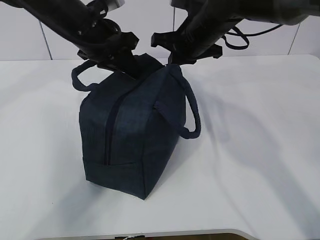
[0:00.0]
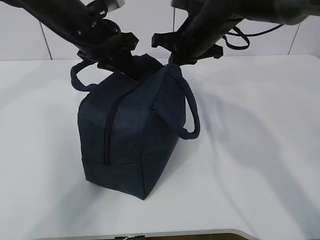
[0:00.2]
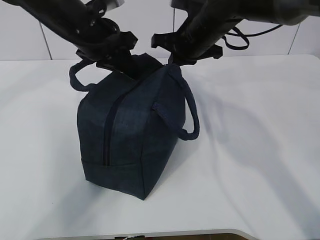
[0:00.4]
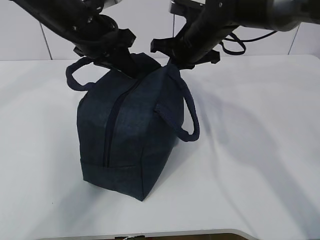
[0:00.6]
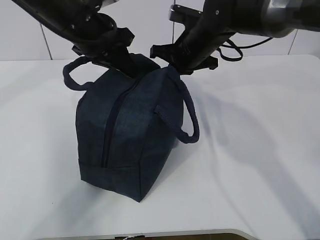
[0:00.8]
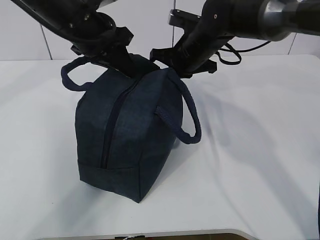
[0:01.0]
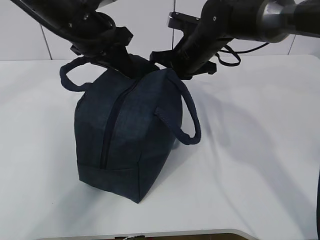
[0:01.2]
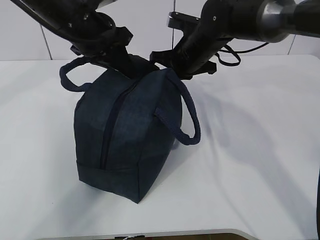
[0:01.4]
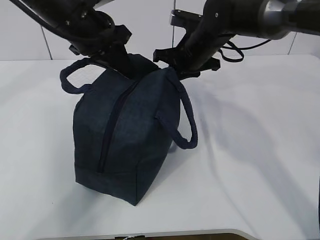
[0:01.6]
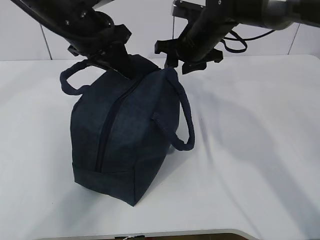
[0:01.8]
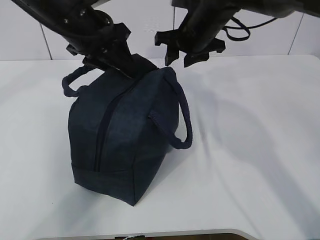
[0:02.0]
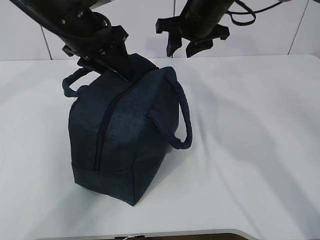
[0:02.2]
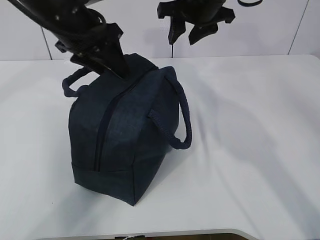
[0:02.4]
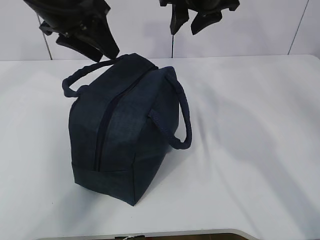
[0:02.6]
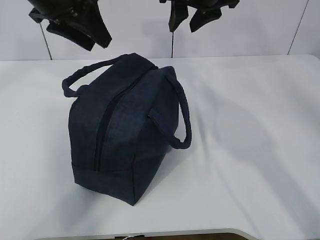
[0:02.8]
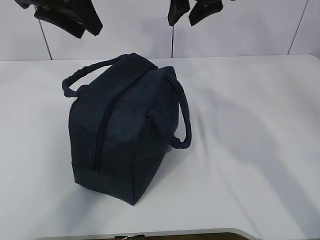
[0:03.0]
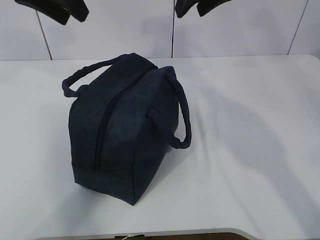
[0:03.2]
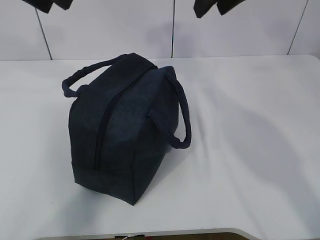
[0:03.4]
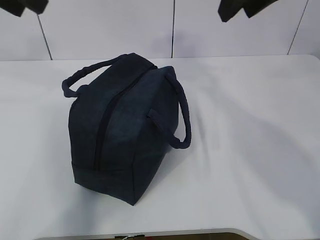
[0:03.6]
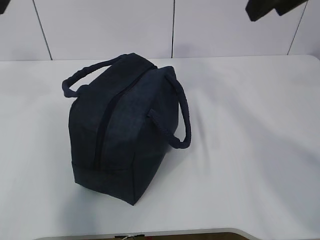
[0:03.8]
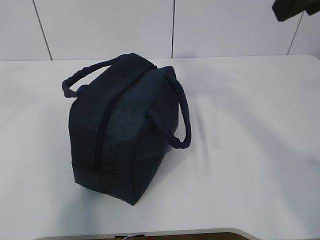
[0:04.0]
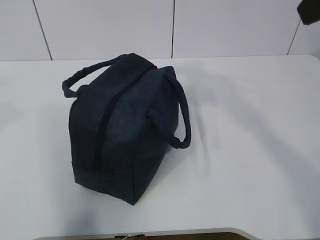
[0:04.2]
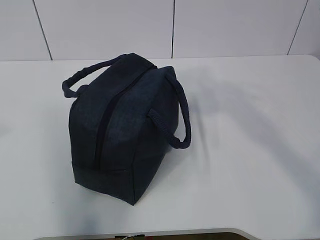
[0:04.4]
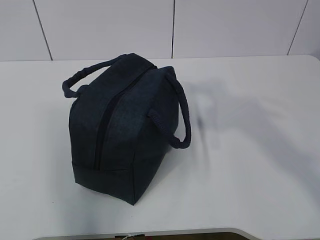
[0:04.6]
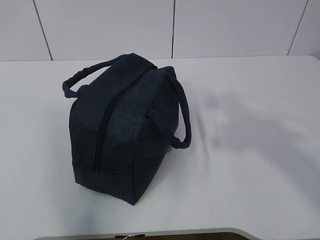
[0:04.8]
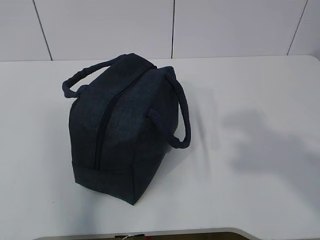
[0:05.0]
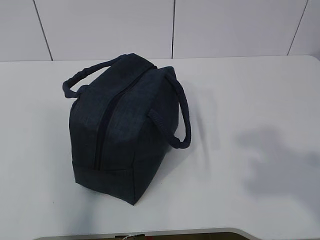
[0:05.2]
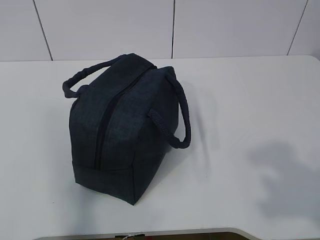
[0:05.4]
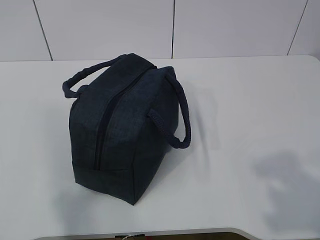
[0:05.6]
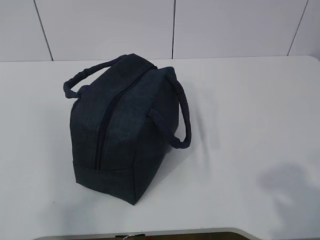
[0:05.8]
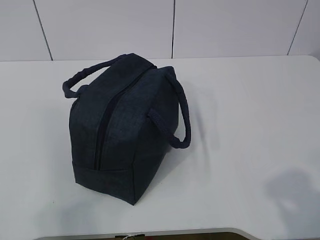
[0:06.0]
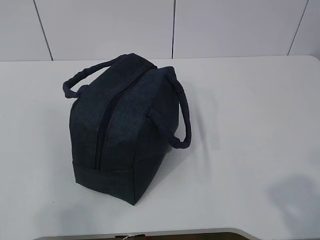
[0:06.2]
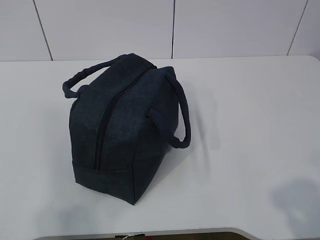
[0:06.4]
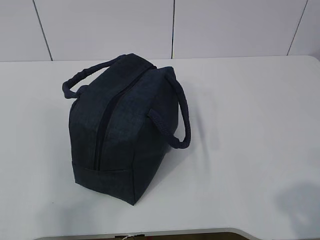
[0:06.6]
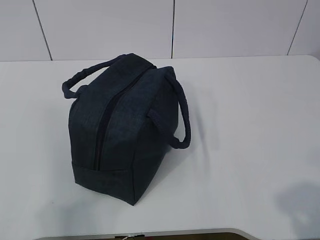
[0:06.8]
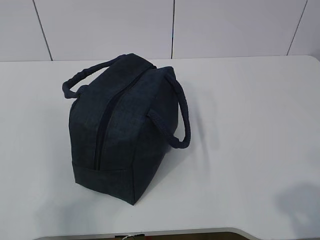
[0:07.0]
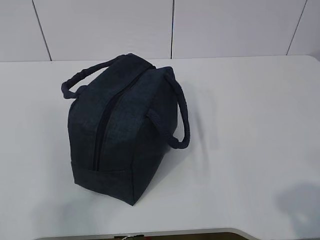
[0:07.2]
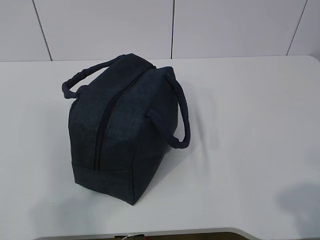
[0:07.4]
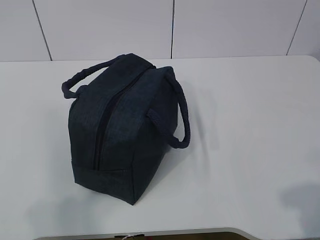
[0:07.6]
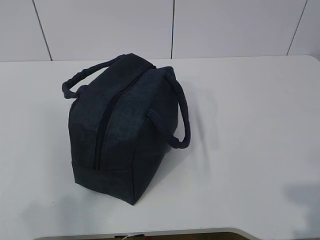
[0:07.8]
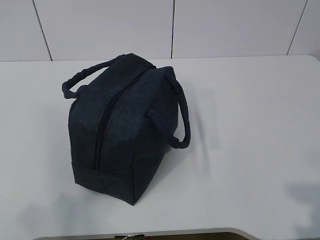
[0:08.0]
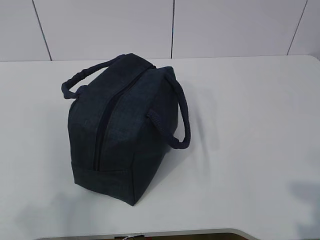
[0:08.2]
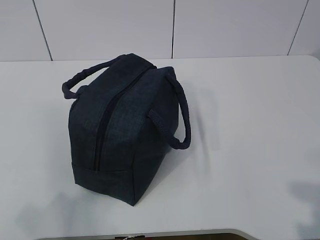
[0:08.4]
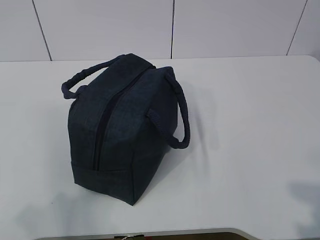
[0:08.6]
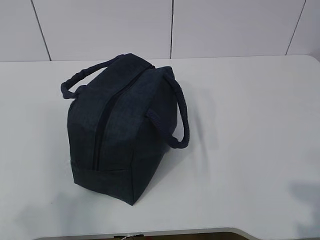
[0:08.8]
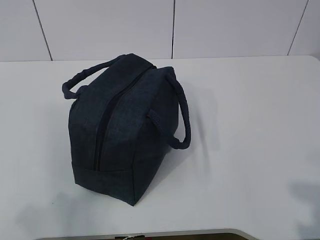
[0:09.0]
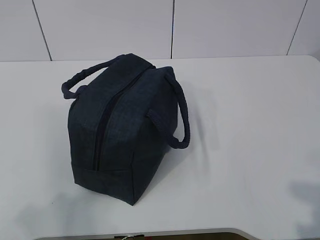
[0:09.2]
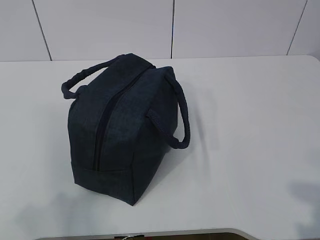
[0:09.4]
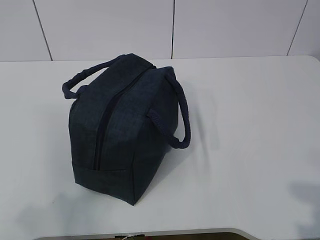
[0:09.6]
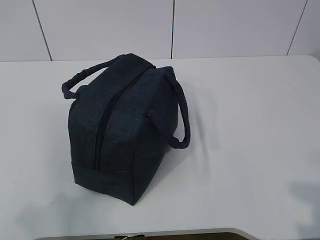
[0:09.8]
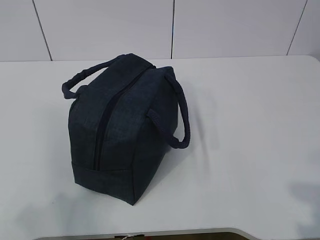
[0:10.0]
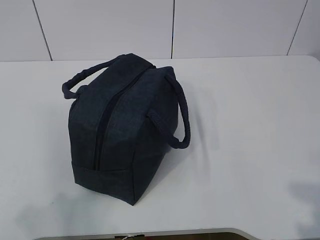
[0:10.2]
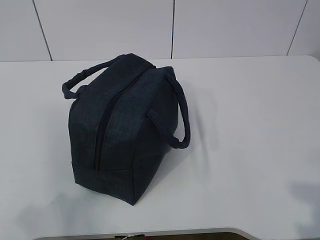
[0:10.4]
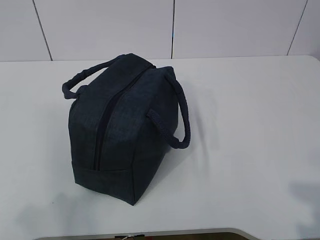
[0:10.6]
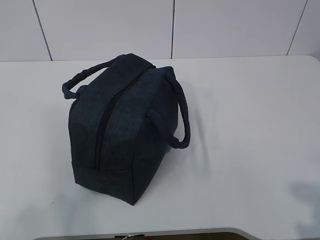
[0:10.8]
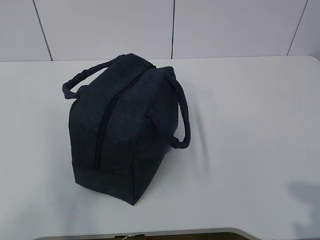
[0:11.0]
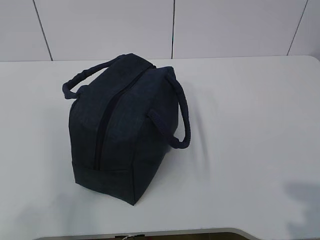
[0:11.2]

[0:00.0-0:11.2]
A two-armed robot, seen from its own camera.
0:00.0 to 0:01.6: The right gripper opens its fingers.
0:01.6 to 0:03.2: The left gripper shifts approximately 10 cm upward and to the left, and opens its fingers; the right gripper goes roughly 15 cm upward, and opens.
0:03.2 to 0:04.8: The left gripper shifts about 30 cm backward. Meanwhile the right gripper heads backward and to the right, covering about 35 cm.
0:04.8 to 0:06.4: The two grippers go about 15 cm downward and backward.
0:08.0 to 0:11.2: Neither gripper changes place.

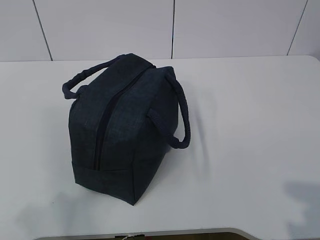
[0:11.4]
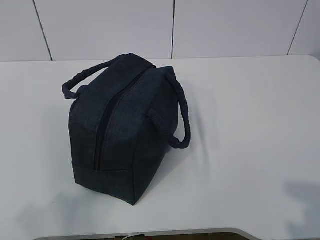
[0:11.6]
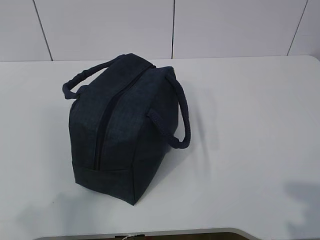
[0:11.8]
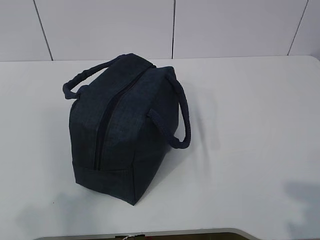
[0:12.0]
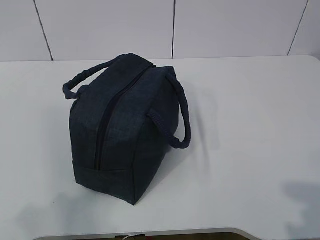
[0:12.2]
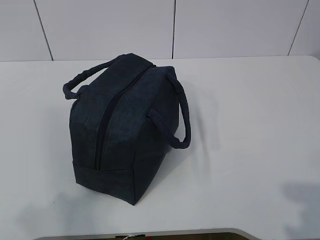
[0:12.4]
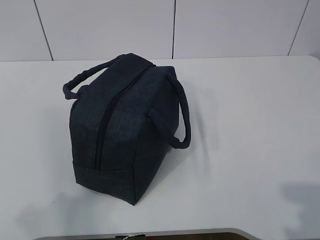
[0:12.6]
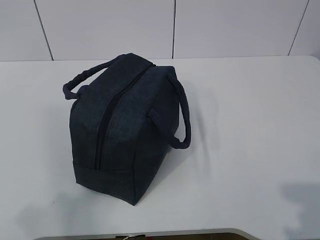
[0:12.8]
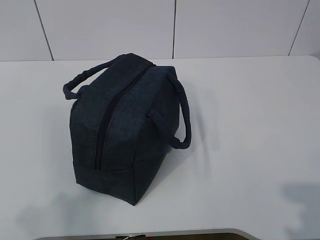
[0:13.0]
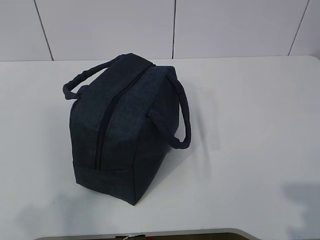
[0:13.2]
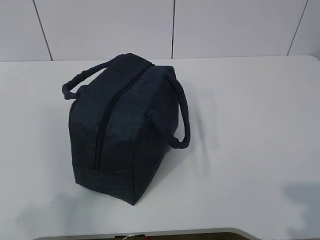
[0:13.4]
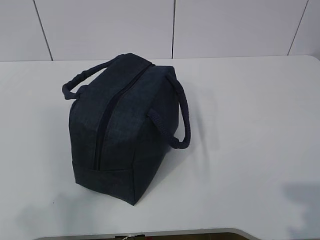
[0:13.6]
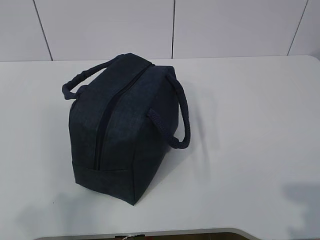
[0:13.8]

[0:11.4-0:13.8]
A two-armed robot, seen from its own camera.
0:11.4 to 0:12.6: The grippers make only small movements.
0:12.6 to 0:13.8: The two grippers keep their place.
